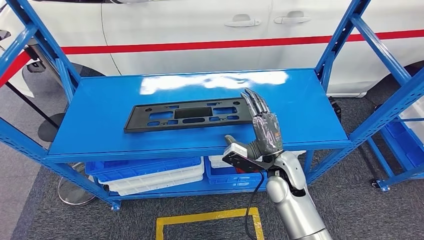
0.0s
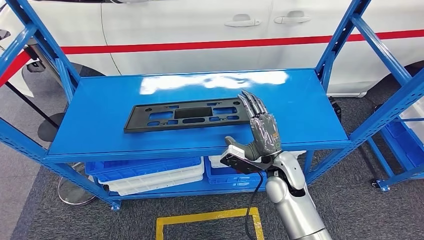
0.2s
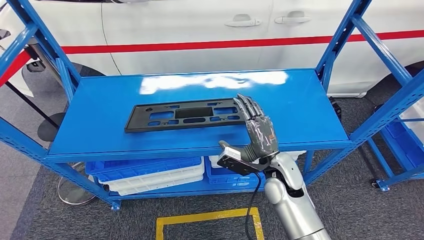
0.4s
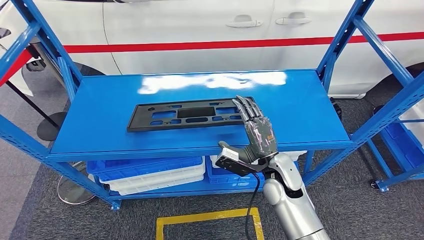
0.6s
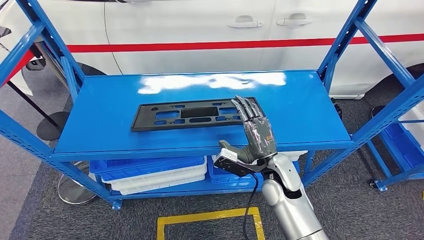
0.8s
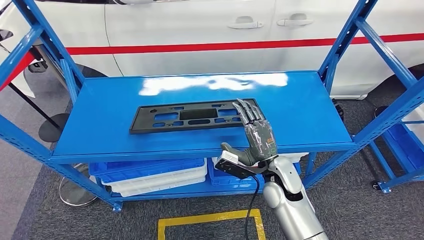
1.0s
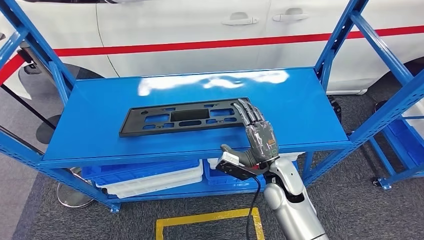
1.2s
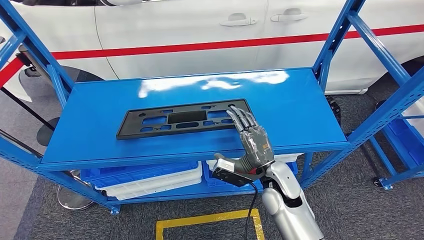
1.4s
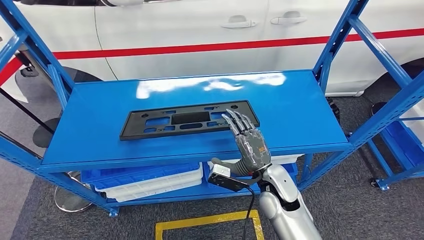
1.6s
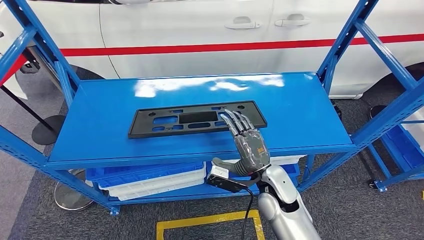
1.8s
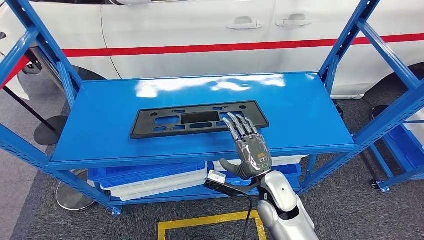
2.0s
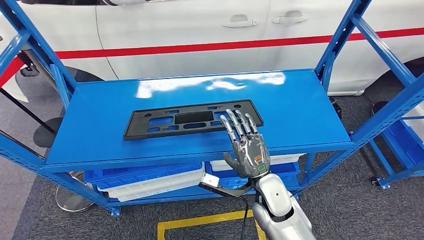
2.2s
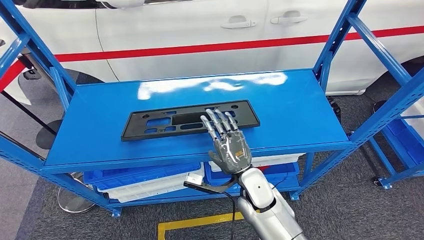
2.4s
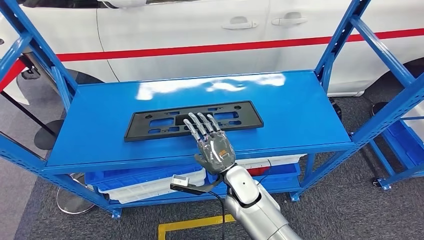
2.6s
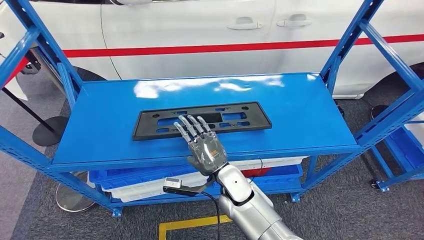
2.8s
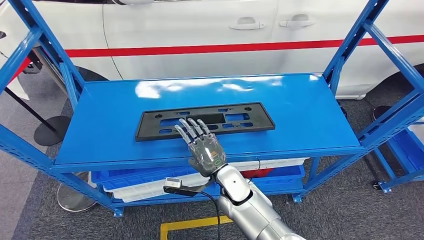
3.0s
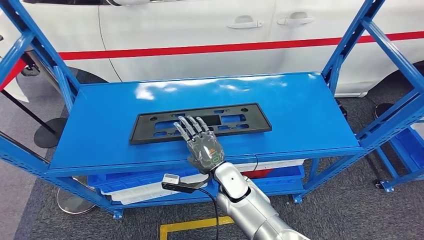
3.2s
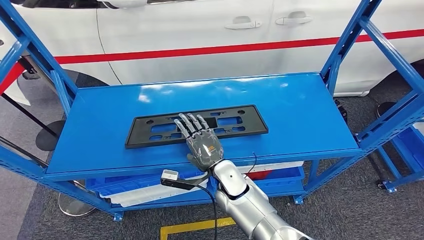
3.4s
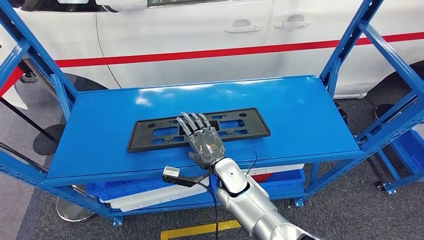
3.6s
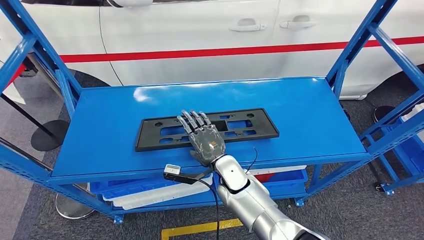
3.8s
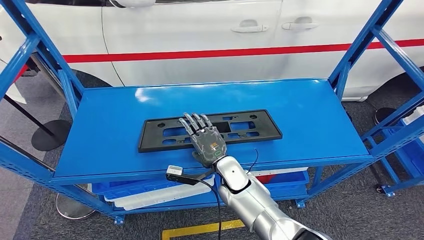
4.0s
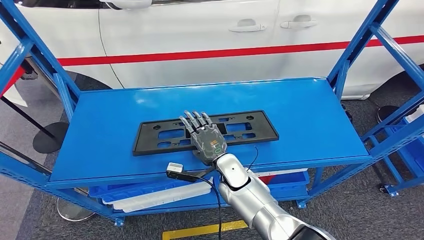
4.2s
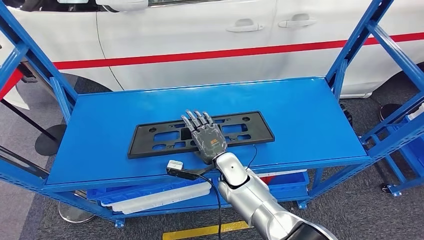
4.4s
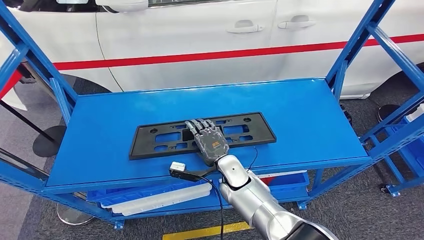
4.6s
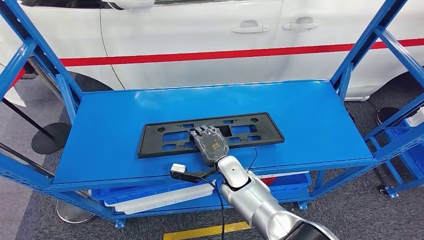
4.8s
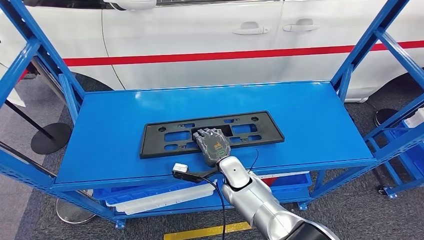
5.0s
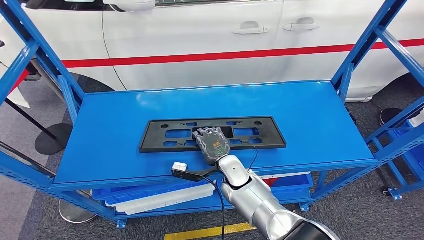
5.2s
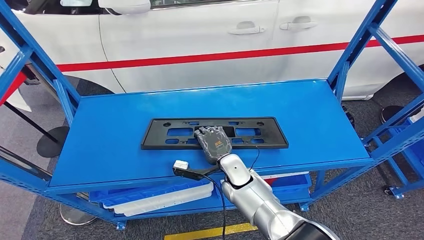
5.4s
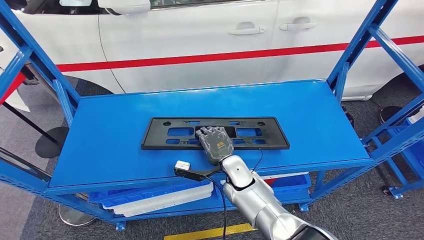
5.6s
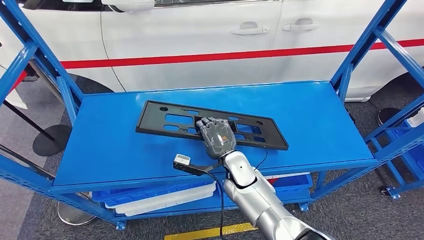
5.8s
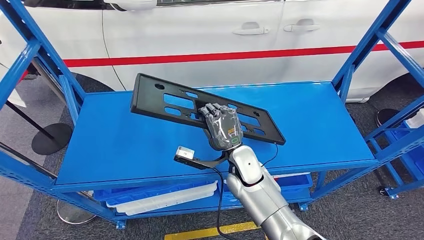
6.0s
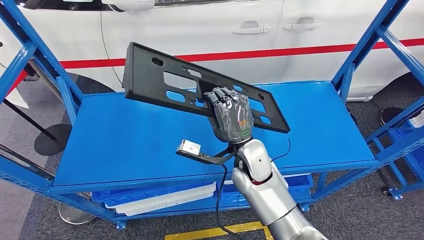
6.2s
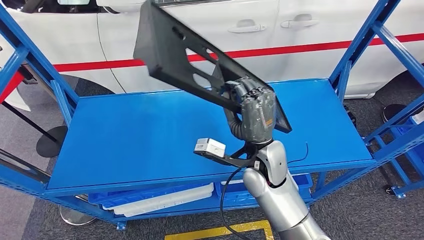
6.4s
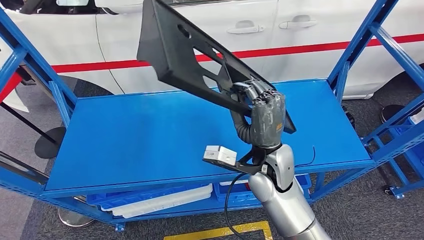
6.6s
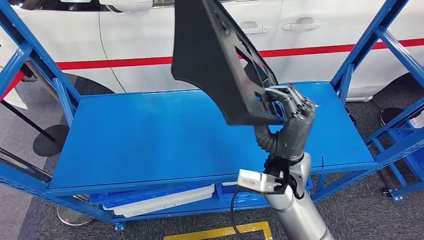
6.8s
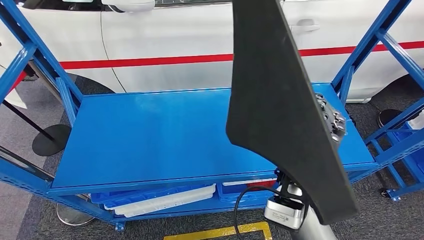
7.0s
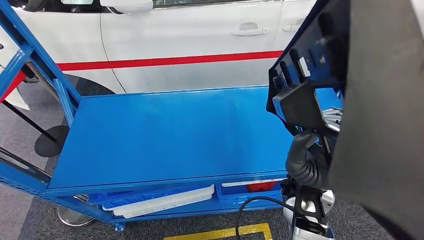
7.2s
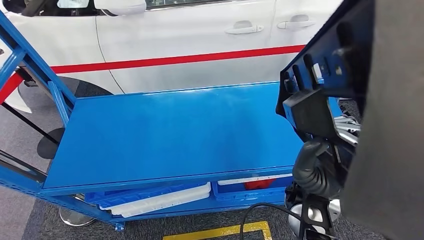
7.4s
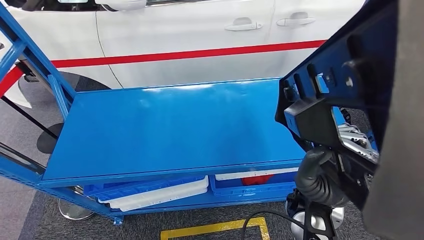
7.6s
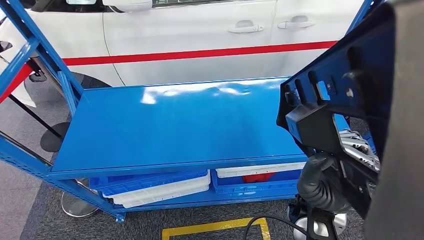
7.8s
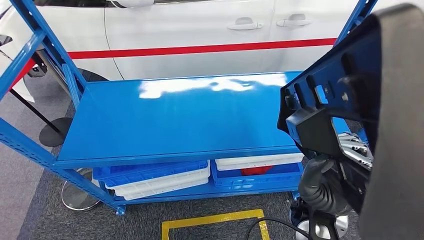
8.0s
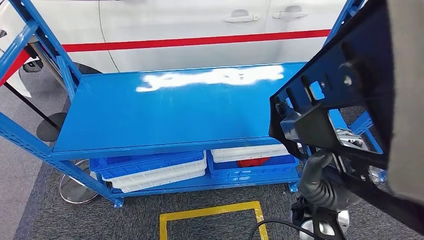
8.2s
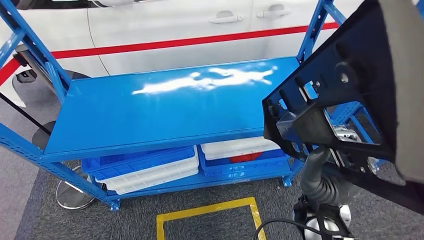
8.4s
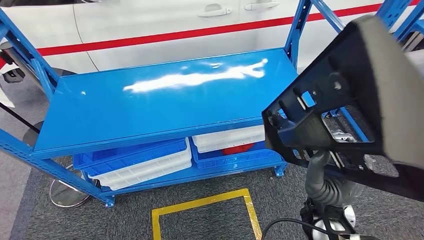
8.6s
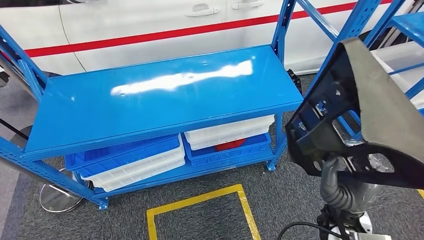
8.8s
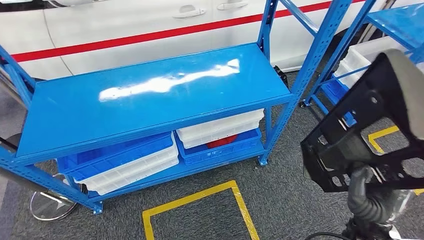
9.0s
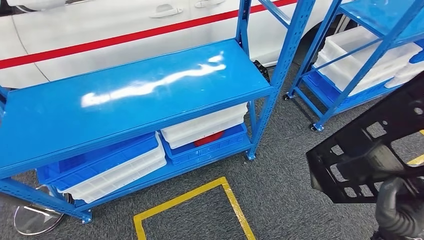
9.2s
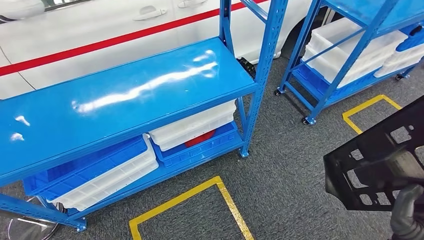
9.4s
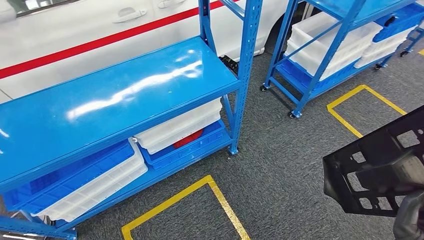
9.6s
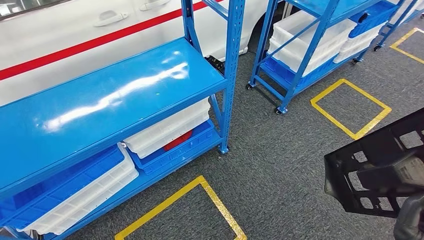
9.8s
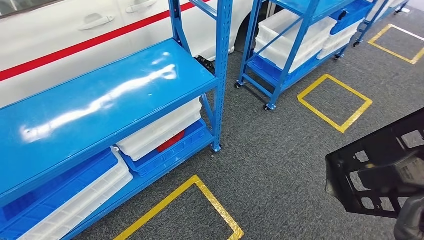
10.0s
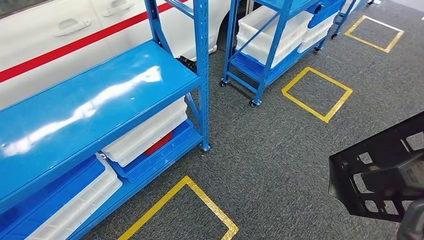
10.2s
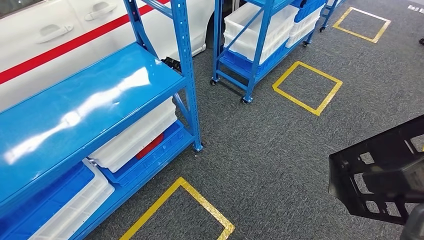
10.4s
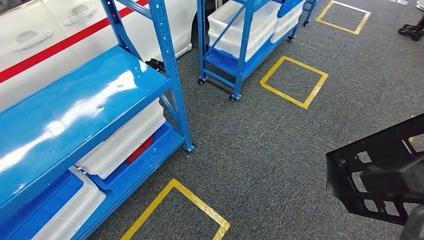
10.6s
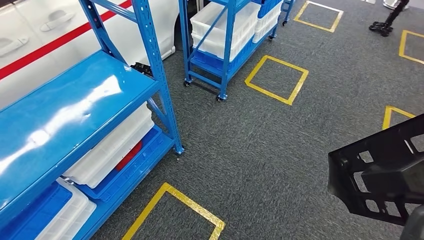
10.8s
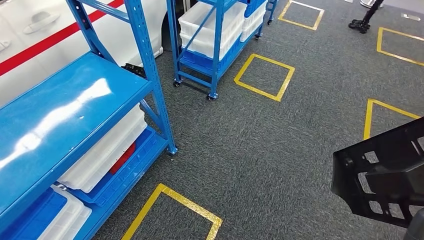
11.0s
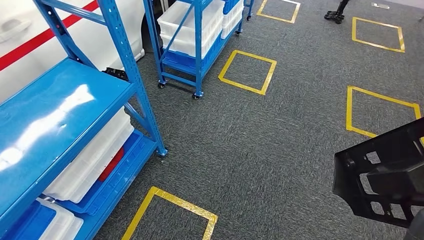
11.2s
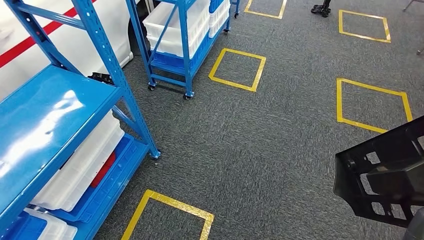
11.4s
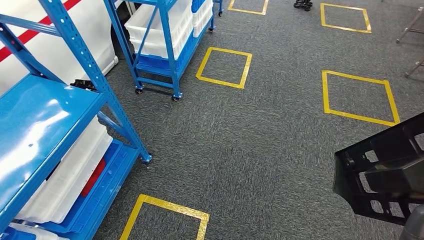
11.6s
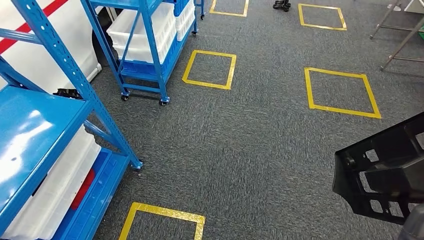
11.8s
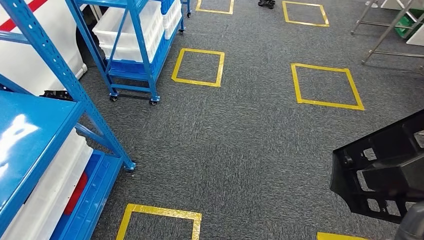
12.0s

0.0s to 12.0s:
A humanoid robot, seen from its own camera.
Step, 0.0s to 6.6s: Pick up the large material from the shelf.

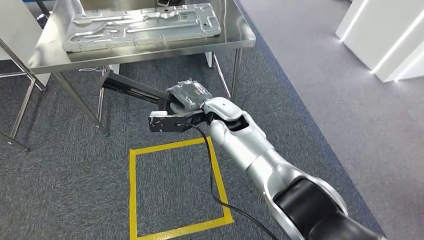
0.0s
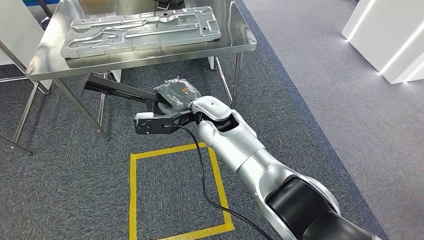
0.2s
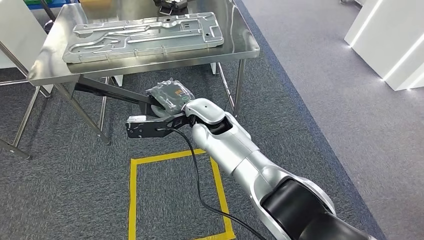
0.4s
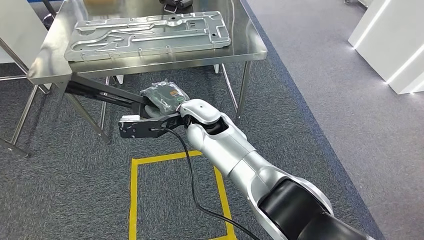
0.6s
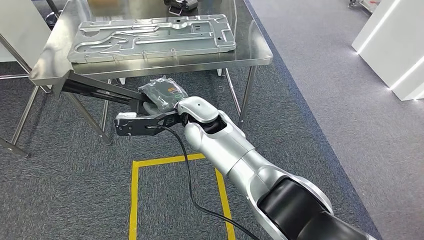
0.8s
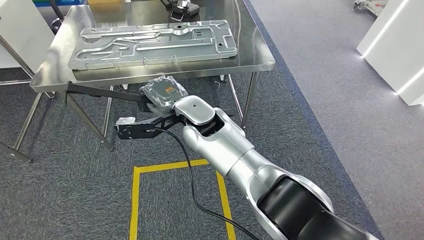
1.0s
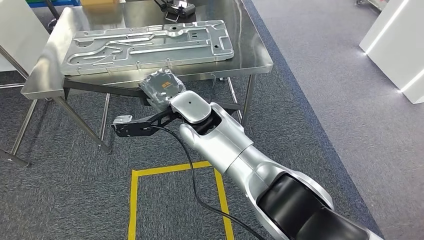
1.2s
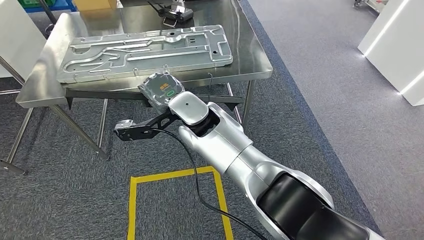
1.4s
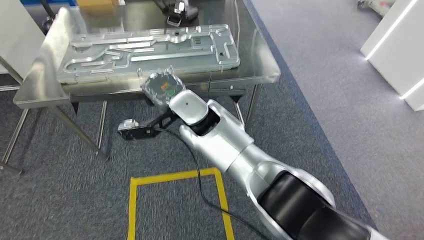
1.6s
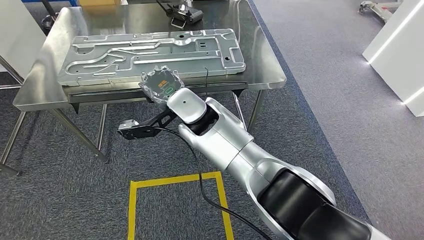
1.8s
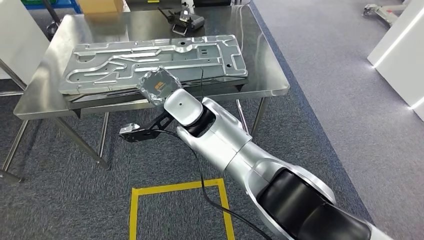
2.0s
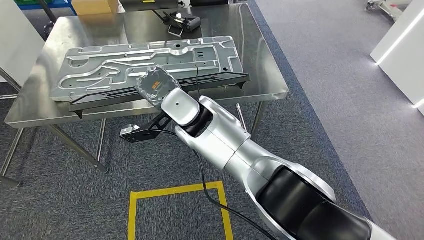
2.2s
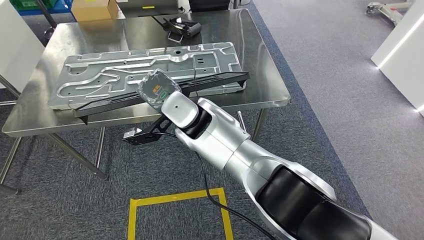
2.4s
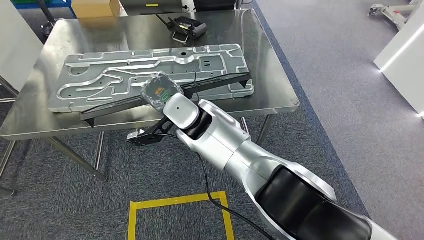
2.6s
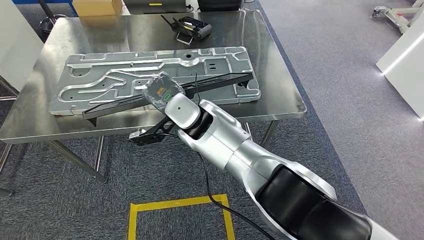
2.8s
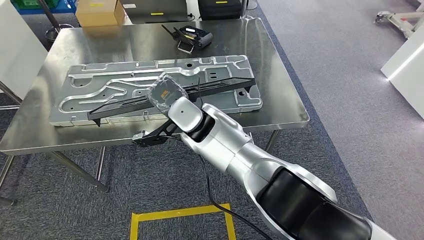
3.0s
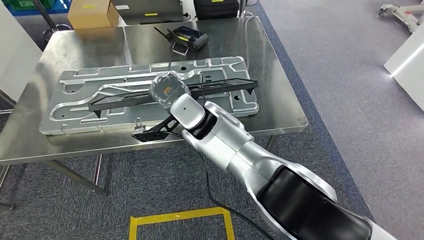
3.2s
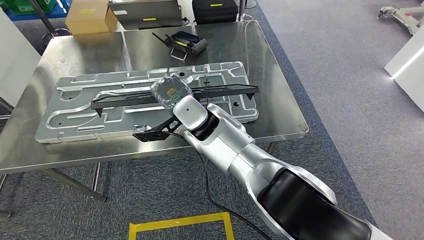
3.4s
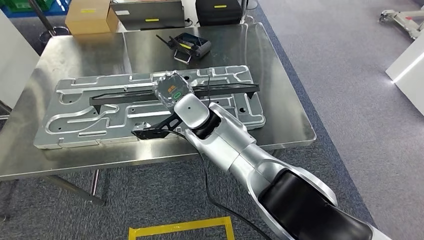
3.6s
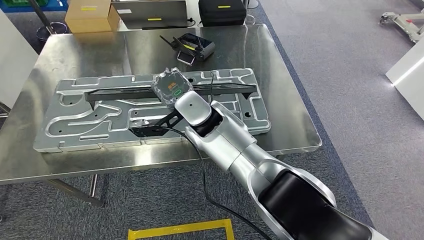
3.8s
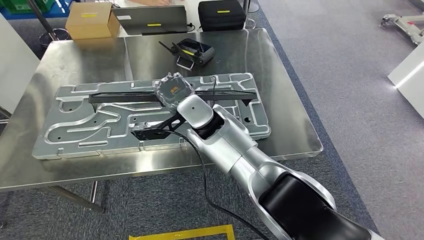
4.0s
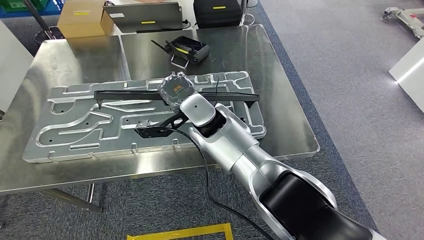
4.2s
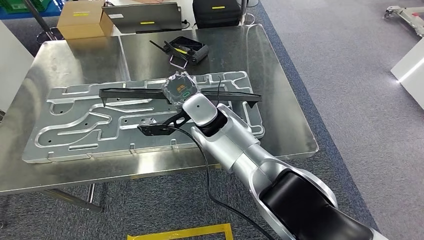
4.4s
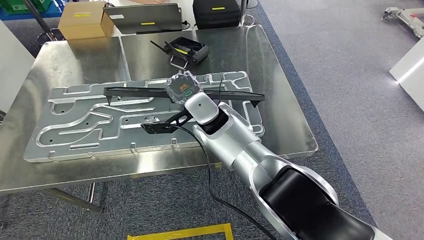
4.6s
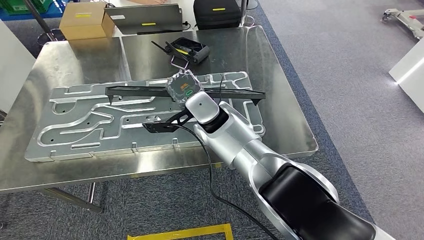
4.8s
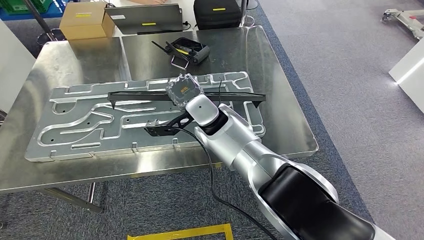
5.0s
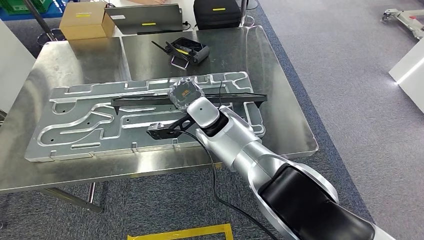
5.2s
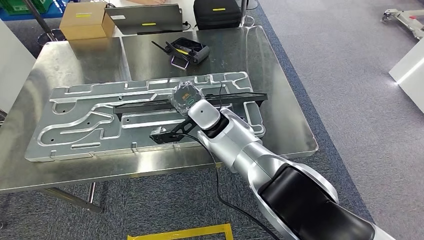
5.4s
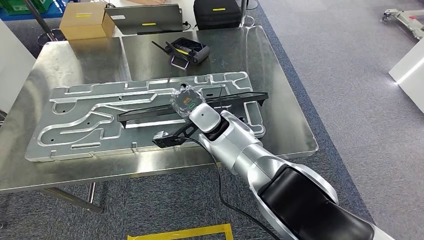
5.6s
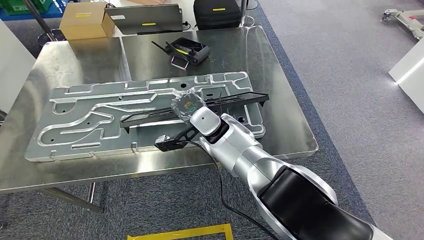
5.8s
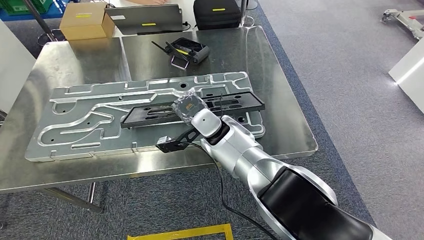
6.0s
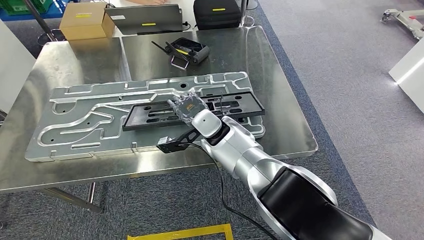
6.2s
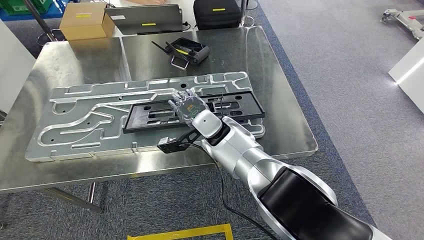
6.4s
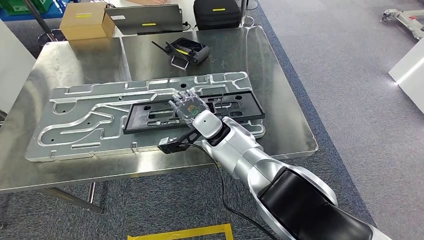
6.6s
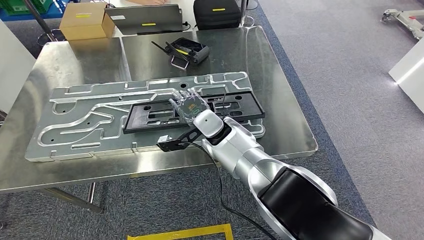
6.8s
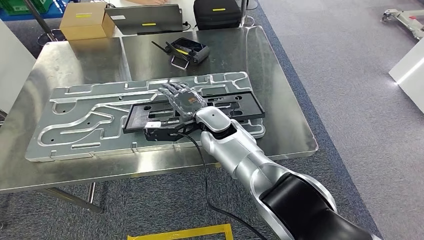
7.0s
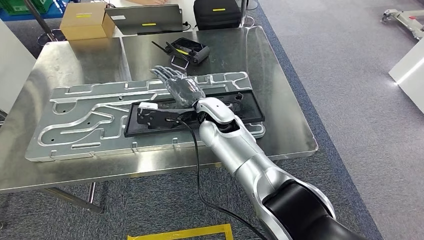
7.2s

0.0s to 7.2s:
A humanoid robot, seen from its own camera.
Step, 0.0s to 4.0s: Move the large material to the workbench.
4.4s to 5.8s: The right hand is displaced downward by approximately 5 cm.
